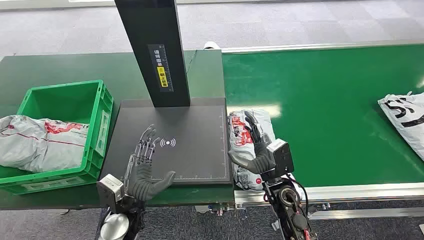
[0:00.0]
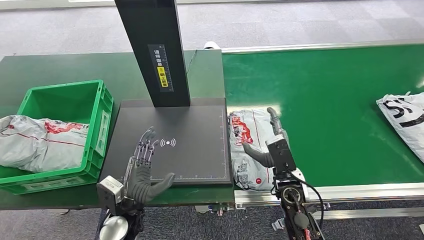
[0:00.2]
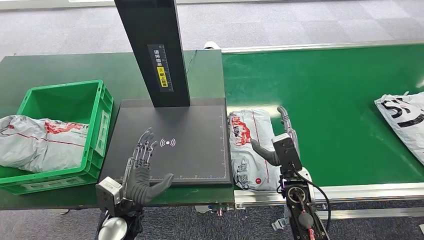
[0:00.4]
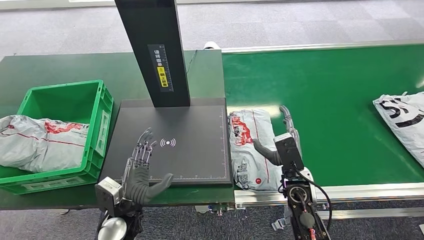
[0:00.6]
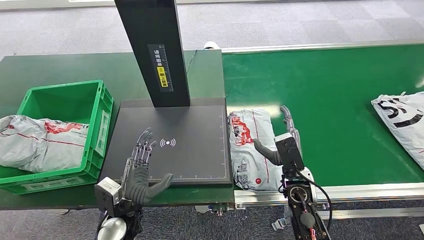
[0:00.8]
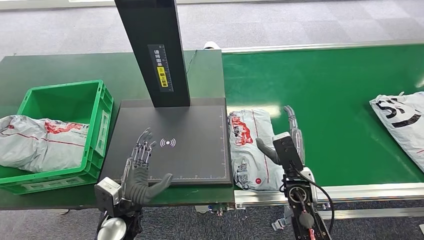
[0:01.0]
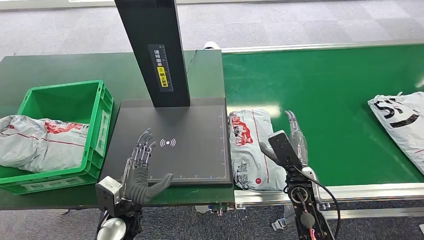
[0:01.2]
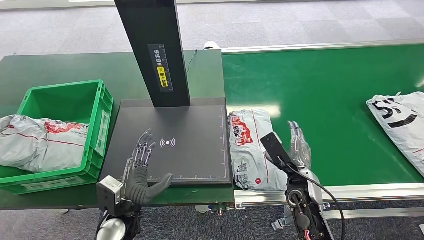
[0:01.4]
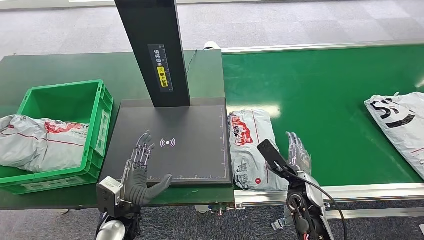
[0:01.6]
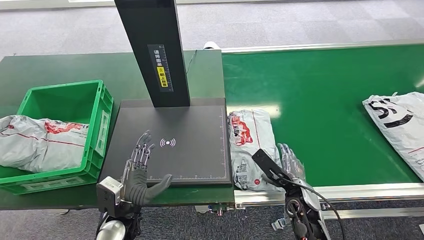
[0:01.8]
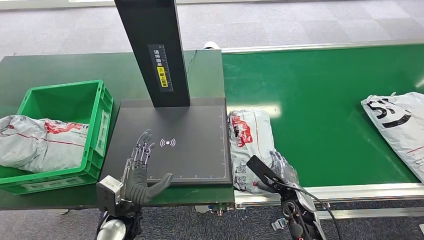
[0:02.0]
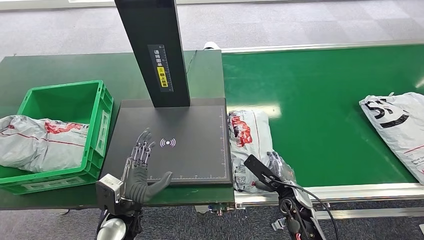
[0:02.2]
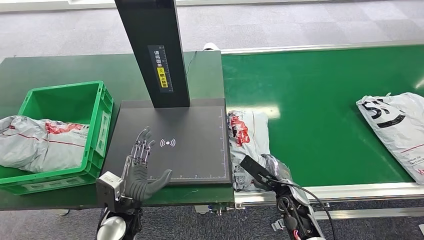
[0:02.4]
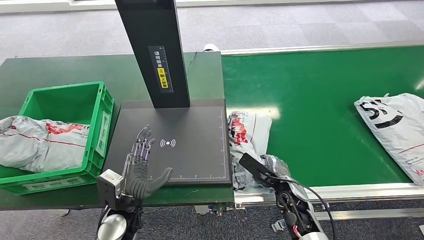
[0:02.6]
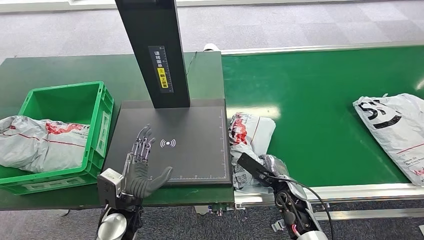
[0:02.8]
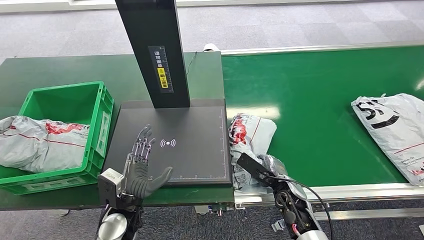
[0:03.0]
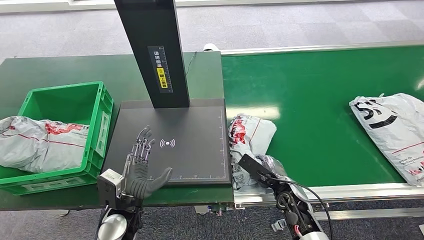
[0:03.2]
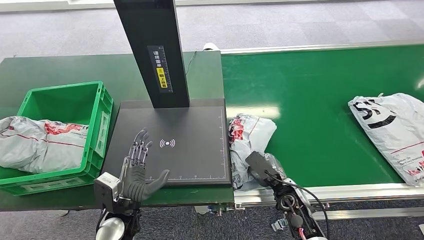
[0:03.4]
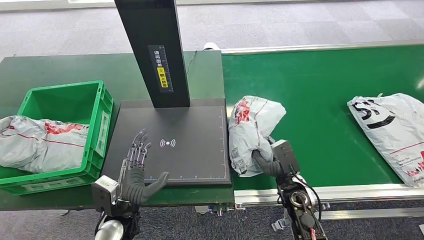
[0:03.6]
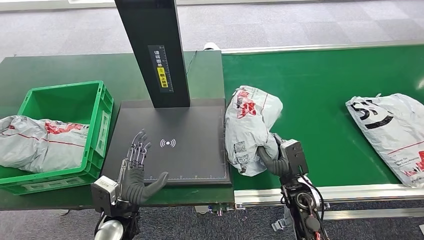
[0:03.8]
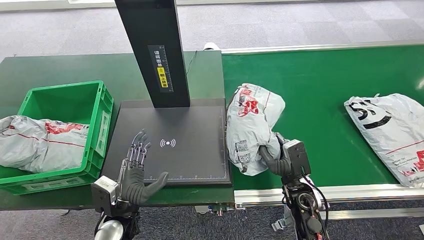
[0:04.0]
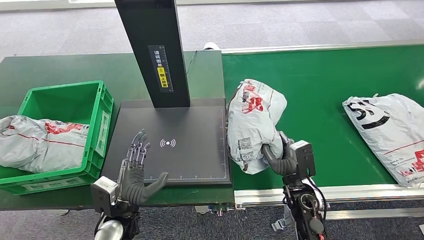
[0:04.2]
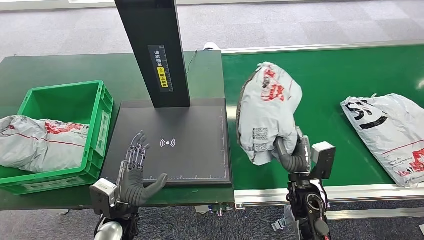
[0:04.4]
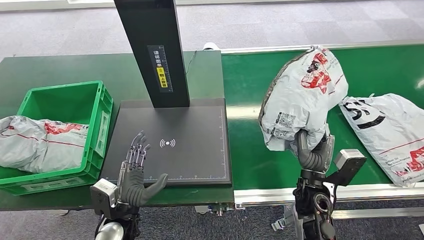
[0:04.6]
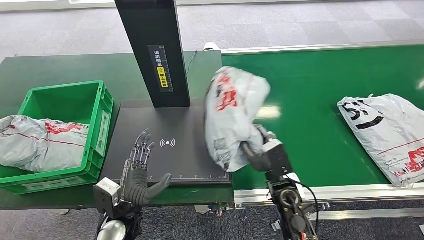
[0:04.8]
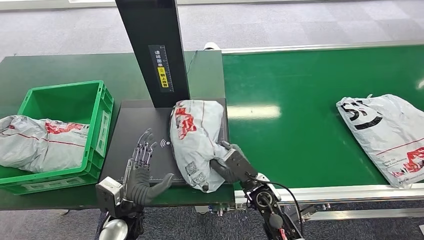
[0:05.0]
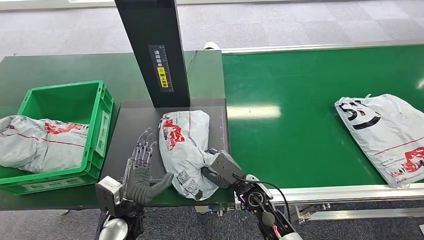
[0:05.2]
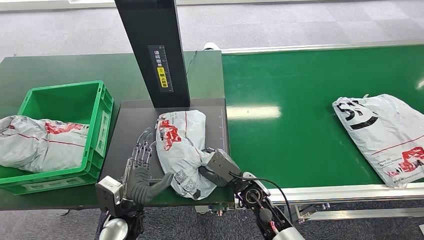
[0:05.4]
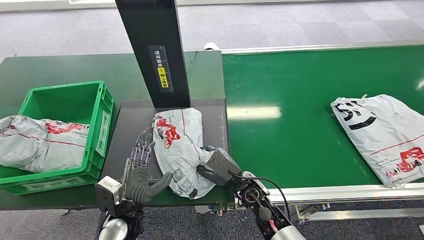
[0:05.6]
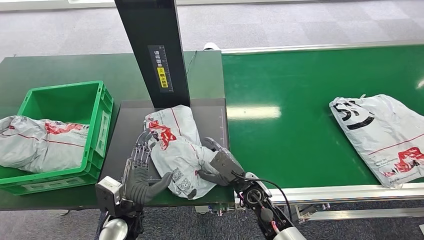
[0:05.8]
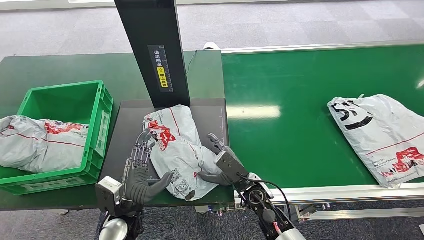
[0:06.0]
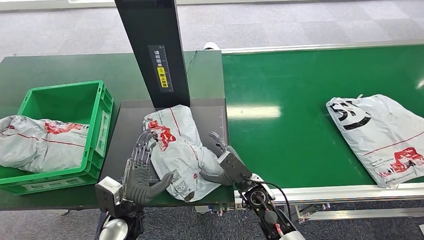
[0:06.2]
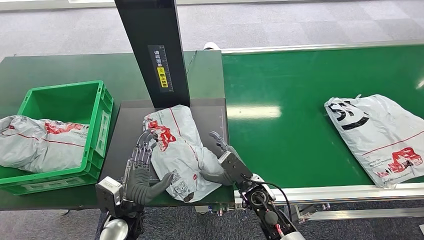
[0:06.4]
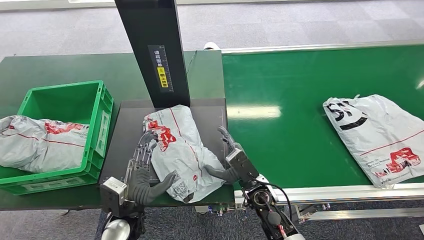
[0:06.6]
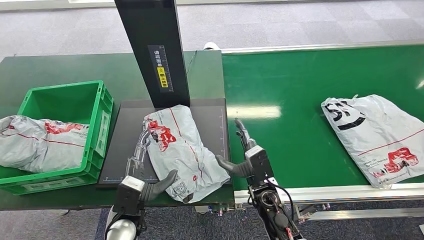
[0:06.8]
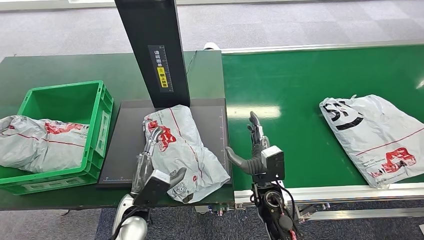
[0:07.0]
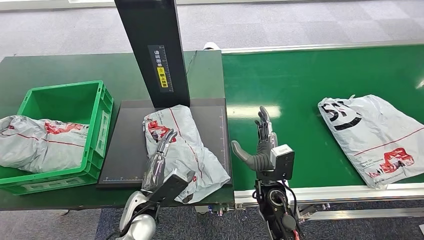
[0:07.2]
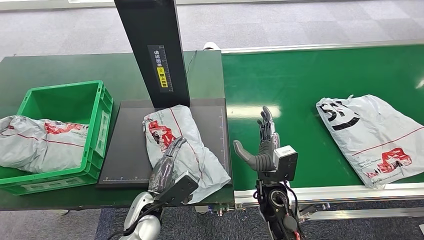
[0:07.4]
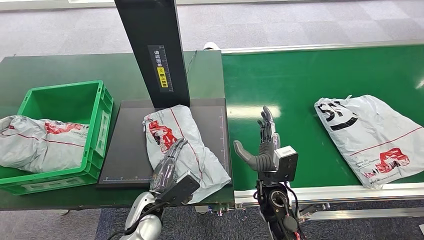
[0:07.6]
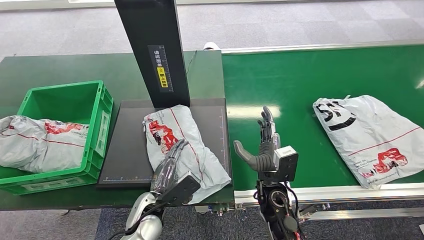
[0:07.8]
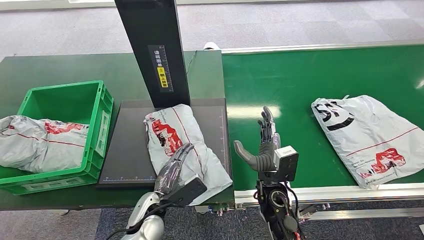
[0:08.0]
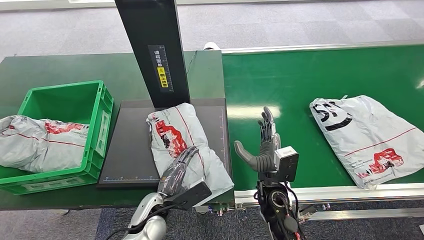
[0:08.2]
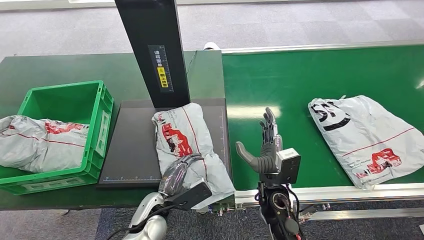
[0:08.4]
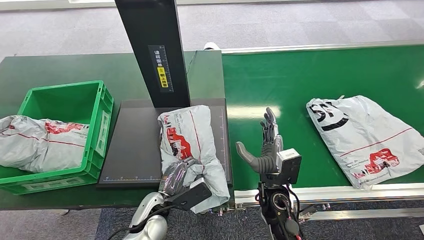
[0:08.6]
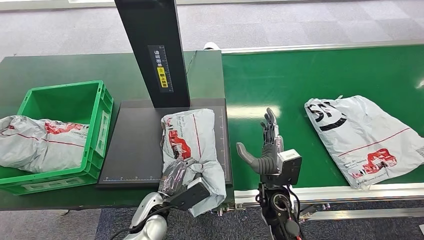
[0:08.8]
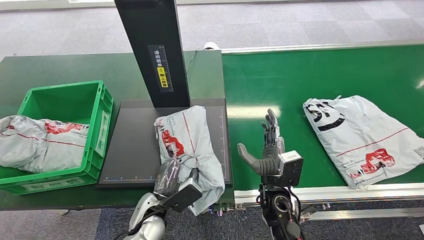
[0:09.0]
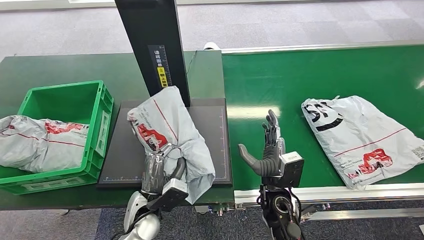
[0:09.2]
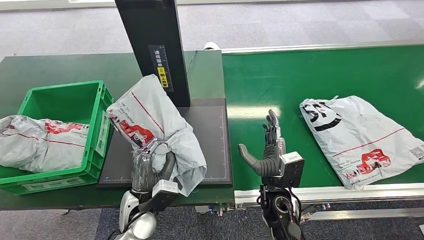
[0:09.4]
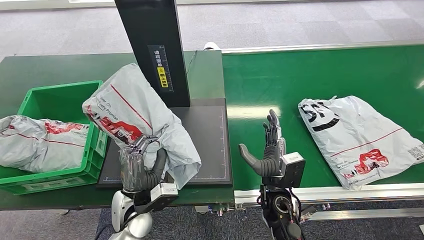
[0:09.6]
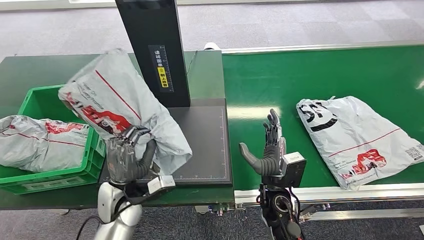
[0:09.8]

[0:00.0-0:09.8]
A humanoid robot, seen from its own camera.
Step, 0:00.0 to 0:04.2: Pick up the package from the conveyor belt.
Step, 0:04.4 to 0:06.6: Place the package onto the inbound machine.
Step, 0:06.8 to 0:09.6: Pick up the package from the inbound machine.
0:01.4 to 0:02.8: The right hand heads downward, covering some 5 cm.

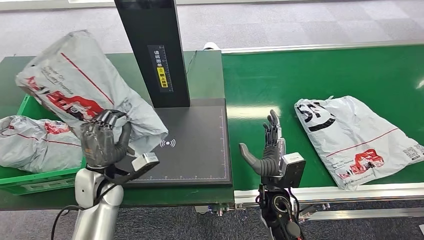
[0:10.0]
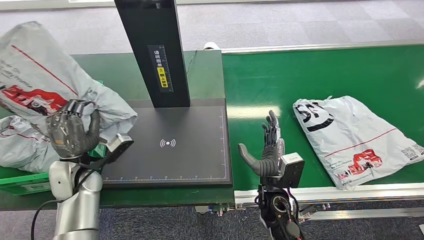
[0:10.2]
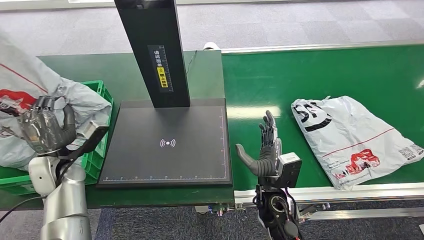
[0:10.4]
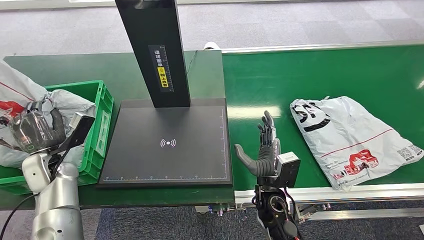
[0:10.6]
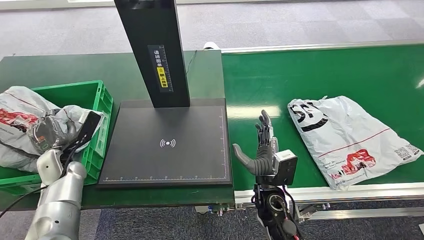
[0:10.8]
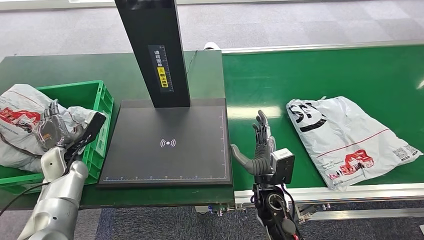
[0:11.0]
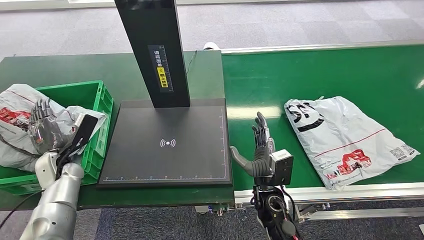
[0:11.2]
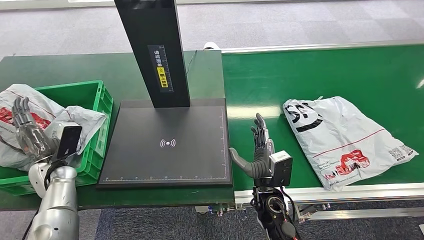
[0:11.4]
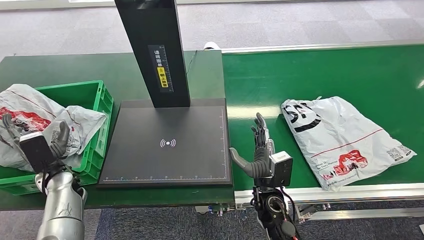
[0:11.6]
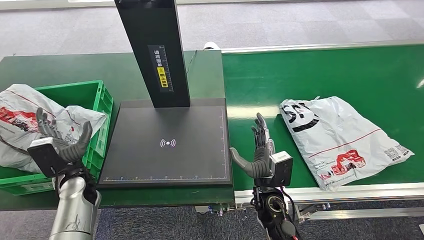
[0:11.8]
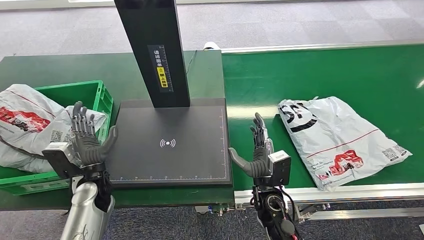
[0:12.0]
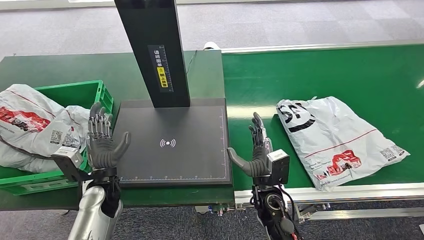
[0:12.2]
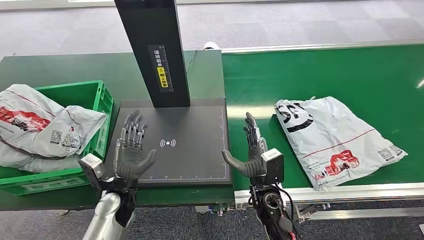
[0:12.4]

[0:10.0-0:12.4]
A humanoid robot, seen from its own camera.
Step, 0:10.0 to 0:12.2: Place the package into the parcel locker.
0:11.2 to 0:12.4: The left hand shifts some 20 cm to the right and backward.
